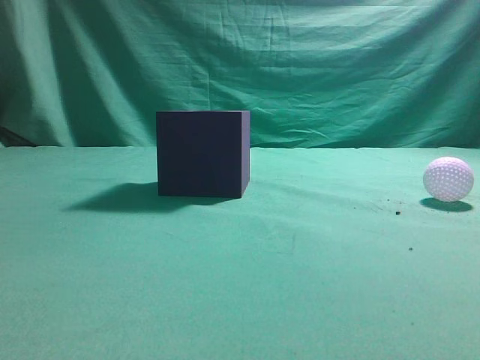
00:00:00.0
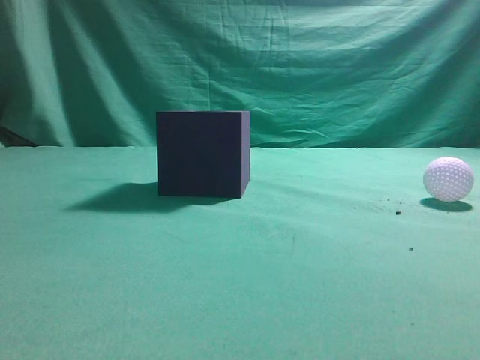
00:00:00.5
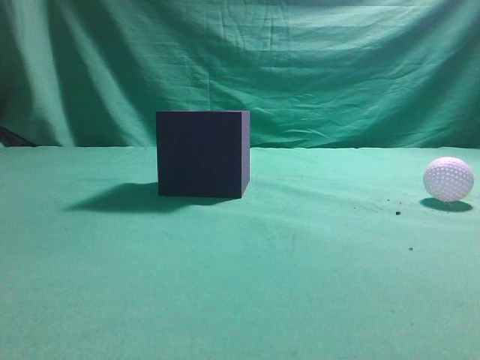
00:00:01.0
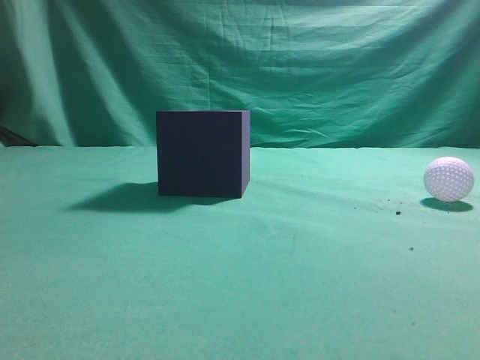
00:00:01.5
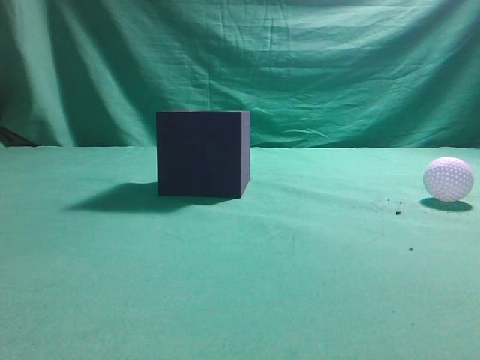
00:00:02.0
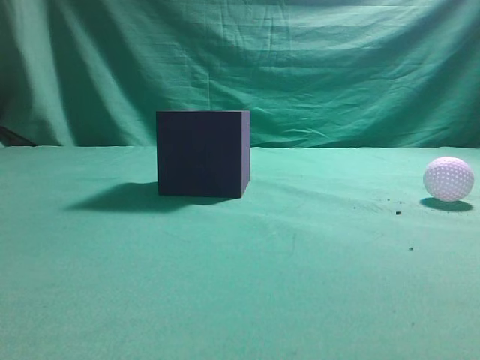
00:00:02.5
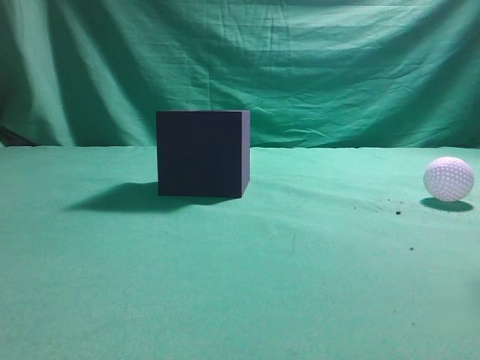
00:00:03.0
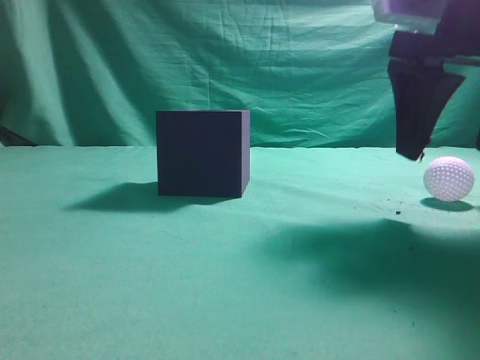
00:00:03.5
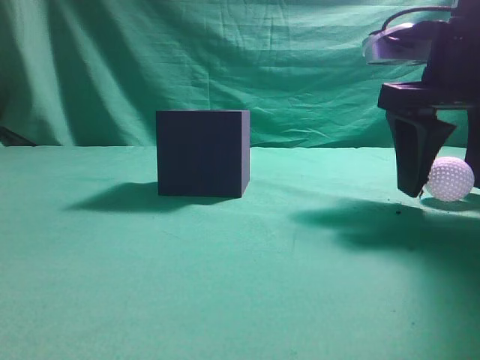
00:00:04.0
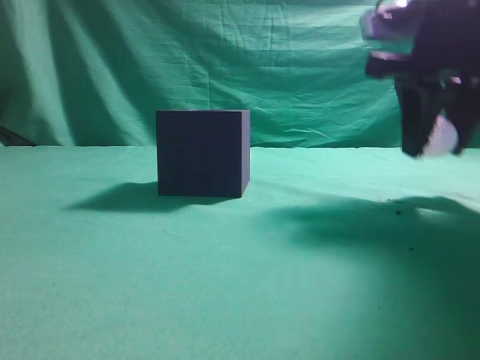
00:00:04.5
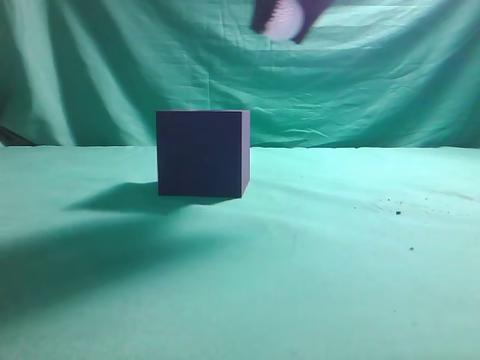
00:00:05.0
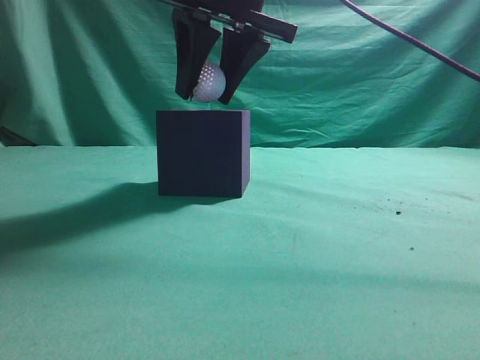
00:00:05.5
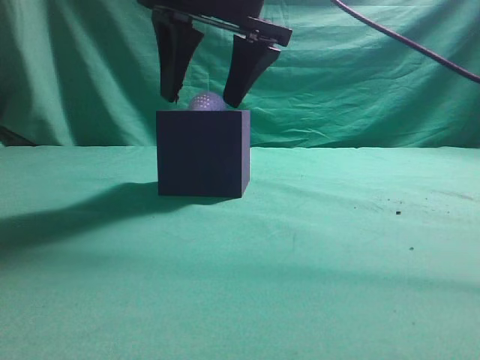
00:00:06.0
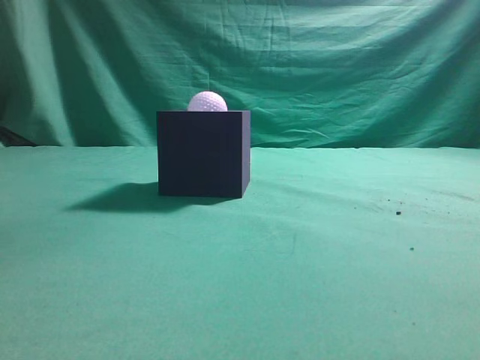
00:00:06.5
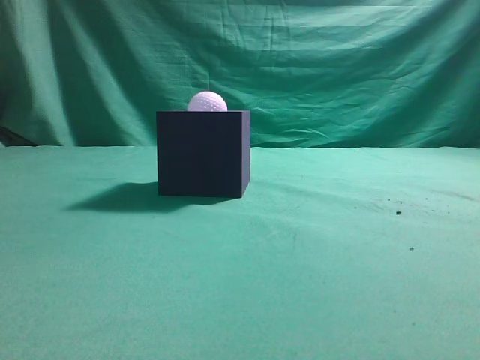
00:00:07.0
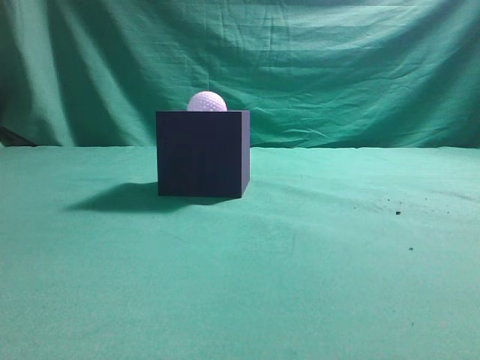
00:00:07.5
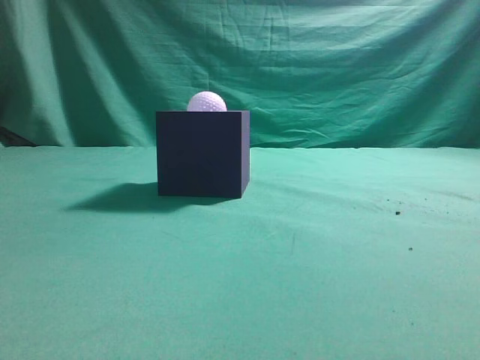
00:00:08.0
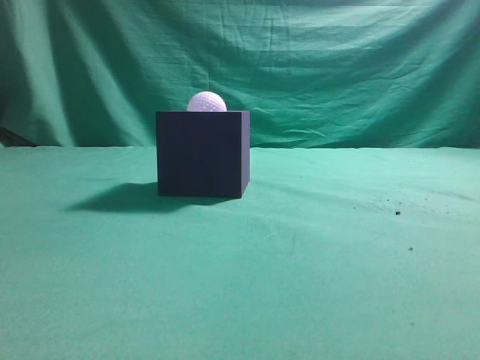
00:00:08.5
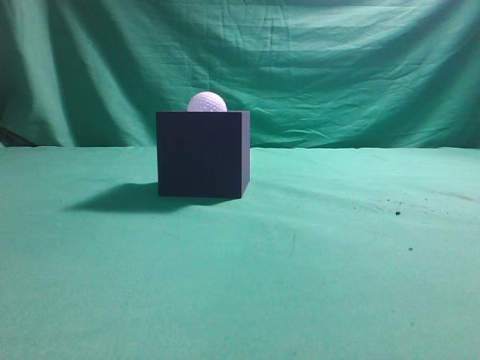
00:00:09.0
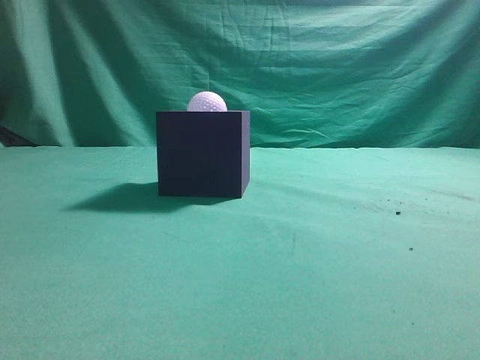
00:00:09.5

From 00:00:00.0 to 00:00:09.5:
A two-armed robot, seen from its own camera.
Task of the whole recording: Pick up the ball and place it in the circular groove above the cube.
Step, from 00:00:00.0 to 00:00:03.5: Grasp the sphere on the table.
Step, from 00:00:04.0 to 00:00:05.0: Place the sphere into the sphere-shaped recess.
From 00:00:02.0 to 00:00:04.0: The right gripper shifts roughly 30 cm forward, downward and to the left, and opens its fingers.
From 00:00:04.0 to 00:00:05.5: The right gripper moves to the left and upward, roughly 20 cm, and closes.
From 00:00:05.5 to 00:00:07.5: The right gripper travels backward, to the right and upward by roughly 30 cm, and closes its fingers.
